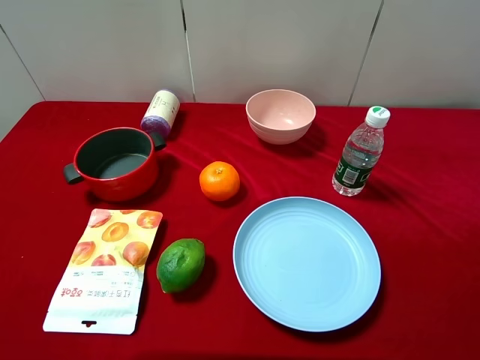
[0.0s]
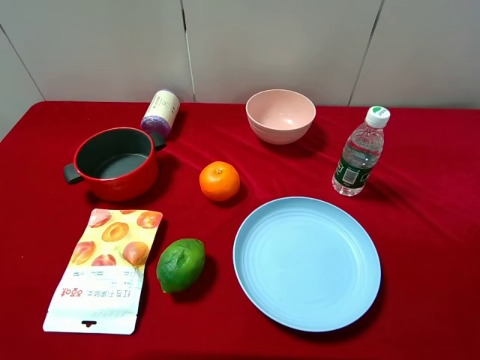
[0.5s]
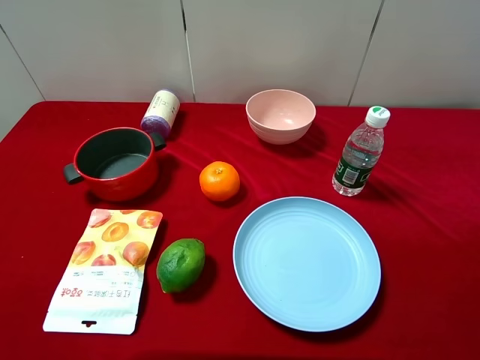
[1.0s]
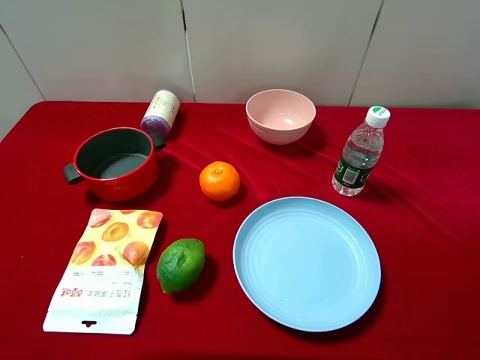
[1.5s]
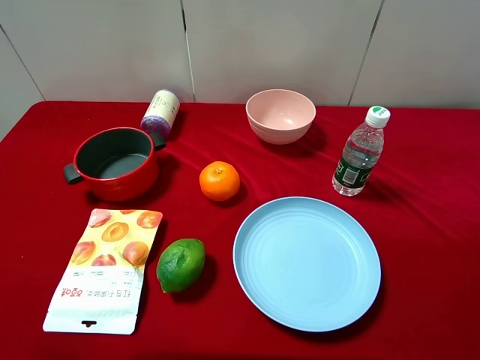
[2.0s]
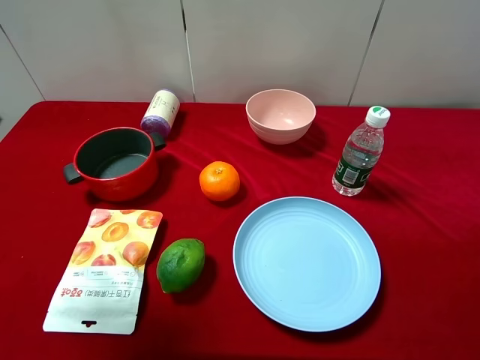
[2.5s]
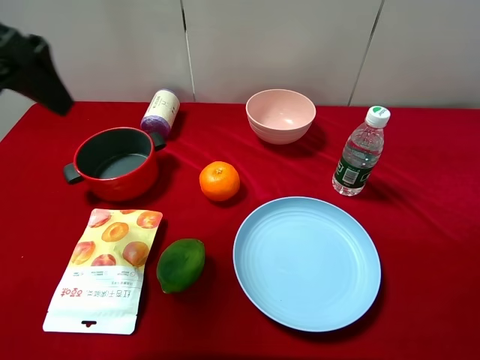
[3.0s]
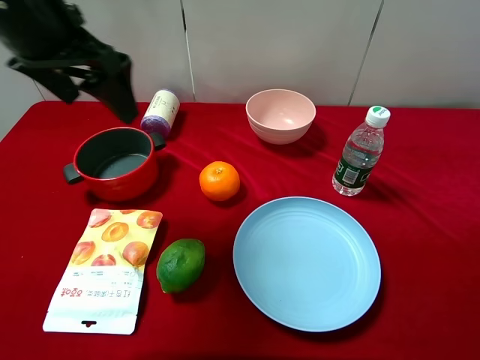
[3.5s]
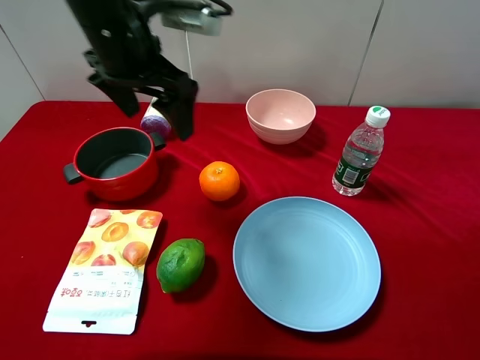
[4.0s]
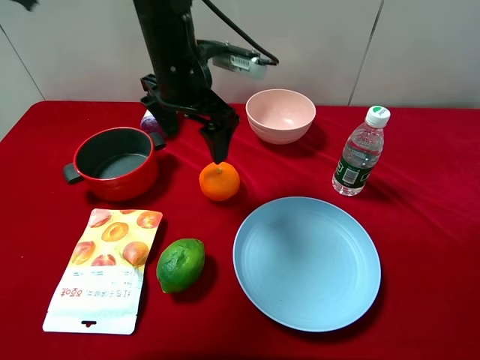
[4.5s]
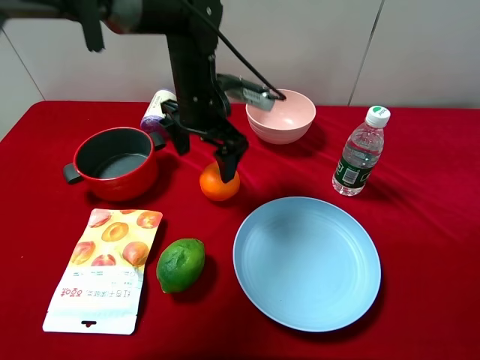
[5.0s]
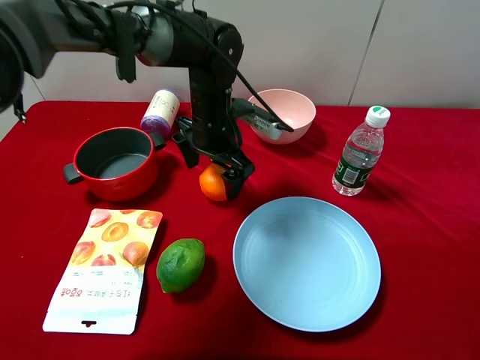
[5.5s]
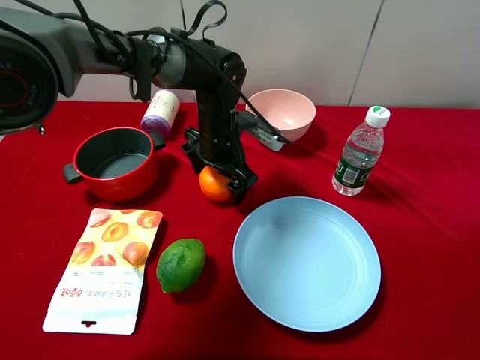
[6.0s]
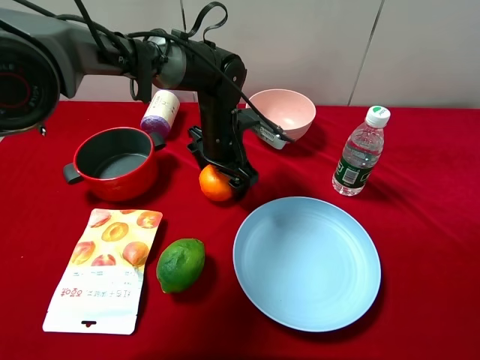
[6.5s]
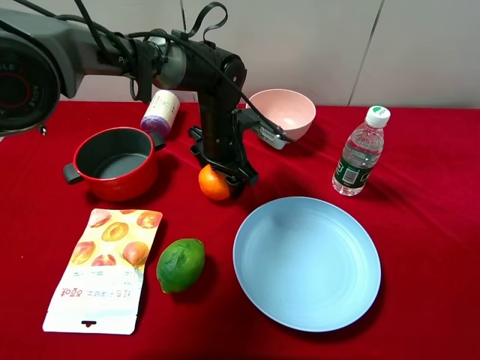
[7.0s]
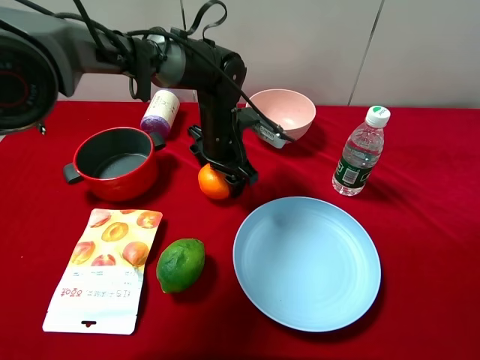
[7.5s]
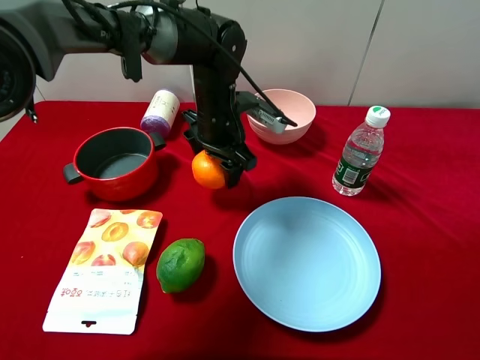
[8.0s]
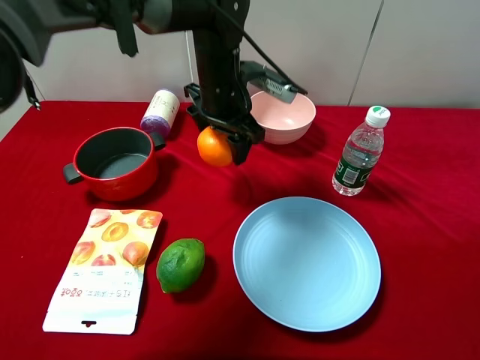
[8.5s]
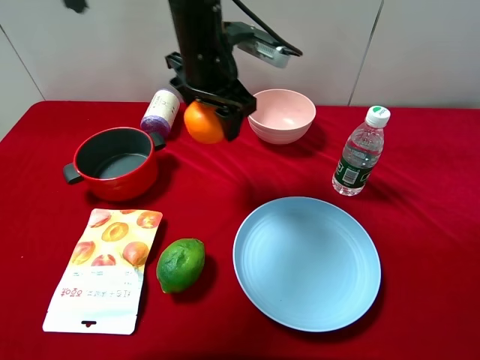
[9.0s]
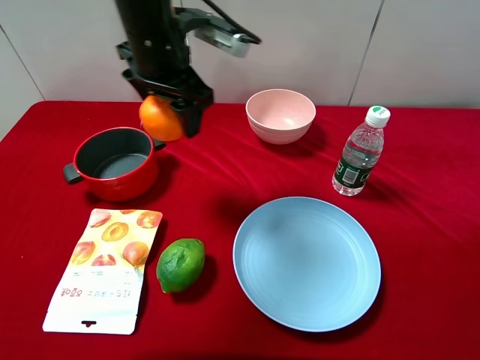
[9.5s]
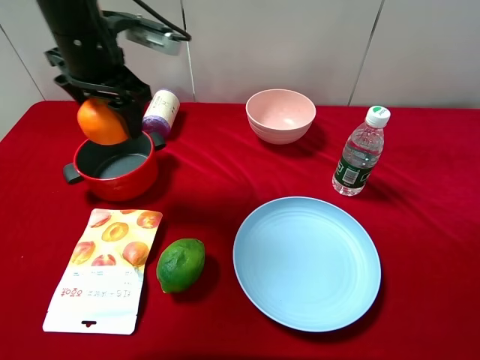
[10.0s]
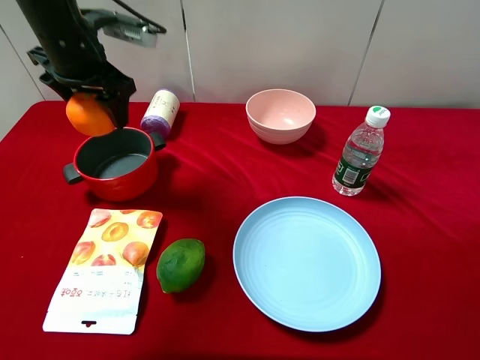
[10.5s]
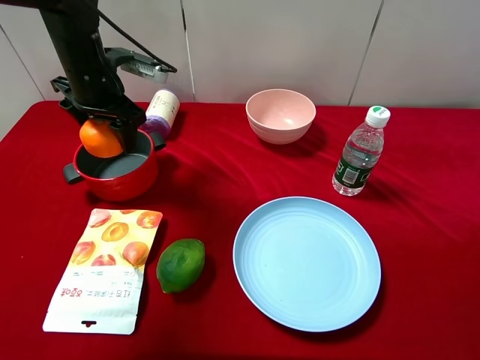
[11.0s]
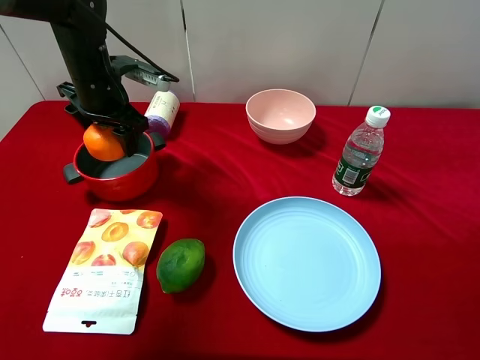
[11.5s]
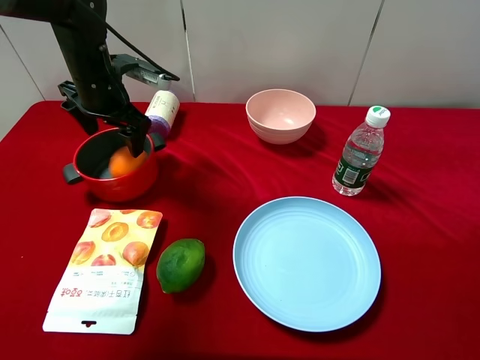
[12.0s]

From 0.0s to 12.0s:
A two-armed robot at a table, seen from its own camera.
Task of the whole recording: pick up an item with a gripper and place it in a random container on the desktop.
From 2.0s to 4.0s: The left gripper is displaced forward and to the right by some 30 cm.
From 4.0s to 6.0s: The left gripper heads downward and to the right, covering some 20 cm.
From 6.0s to 8.0s: The left gripper closes.
From 8.0s to 10.0s: The left gripper goes approximately 20 cm to the left and upward.
From 10.0s to 12.0s: The left gripper moves downward and forward, approximately 10 cm, and opens its fingers.

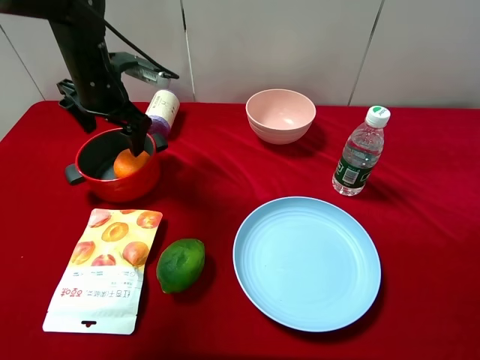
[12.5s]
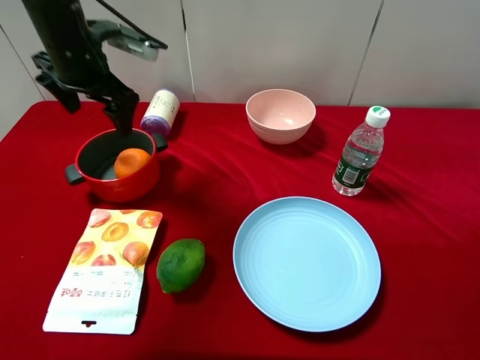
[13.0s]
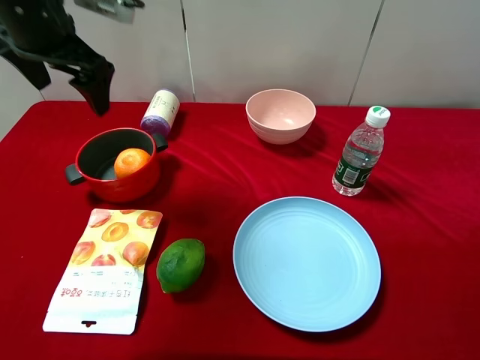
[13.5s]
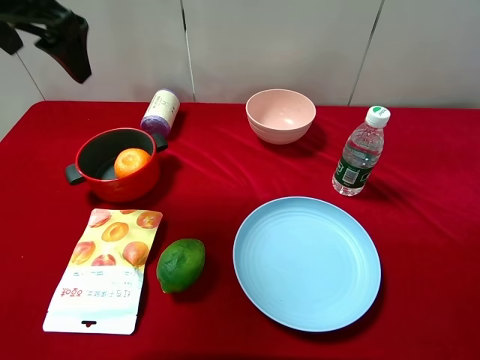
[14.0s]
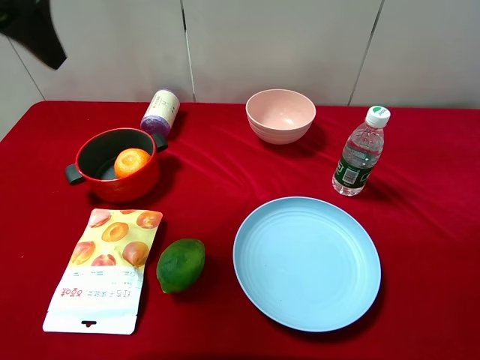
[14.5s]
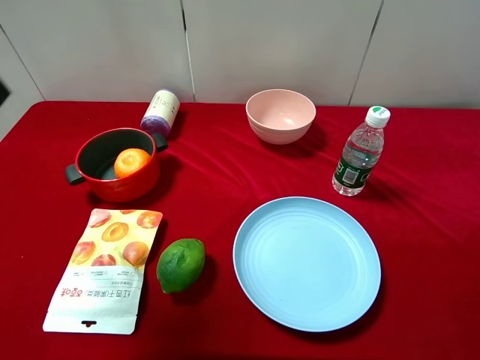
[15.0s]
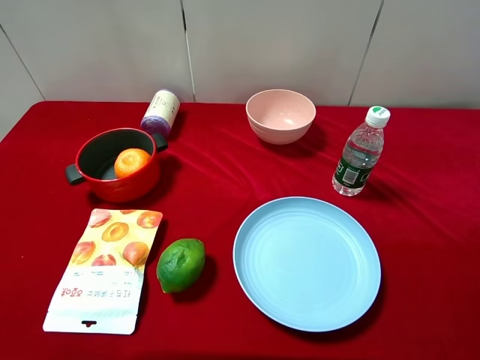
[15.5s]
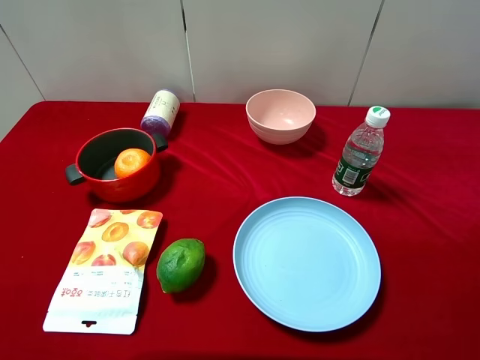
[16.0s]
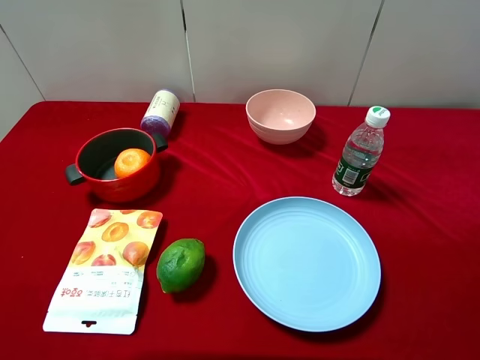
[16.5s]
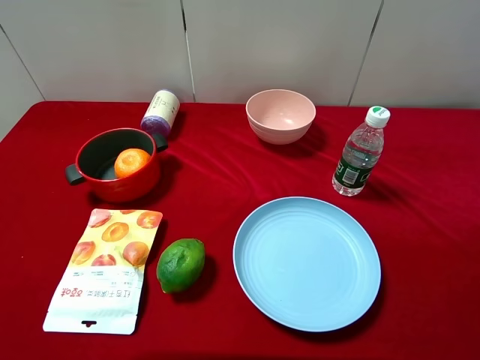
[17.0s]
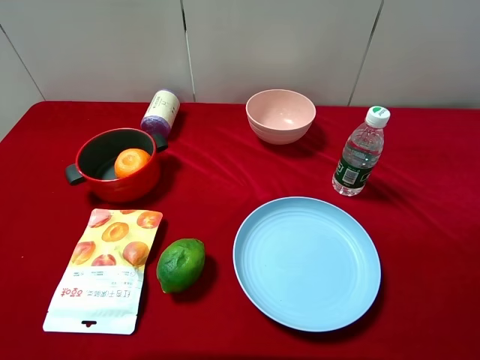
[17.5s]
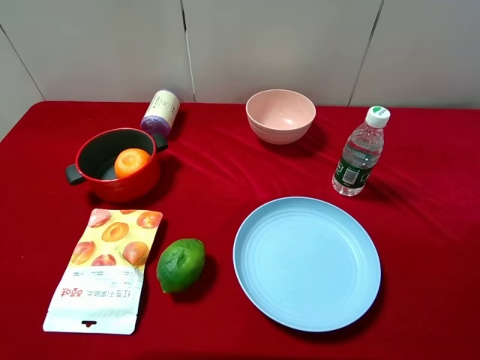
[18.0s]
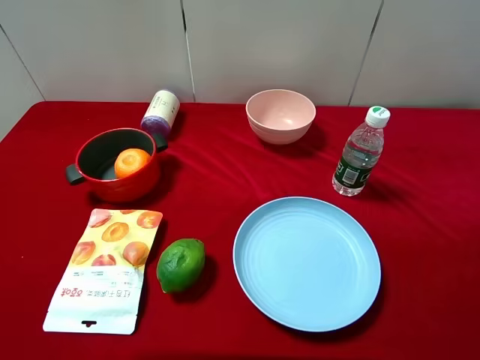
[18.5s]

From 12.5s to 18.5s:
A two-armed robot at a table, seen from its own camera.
Task of the whole recording: pick up an item with a gripper and place it in a random container on the desktop.
From 12.5s to 14.5s: The left gripper travels upward and backward by some 25 cm.
From 14.5s to 16.5s: The left gripper is displaced backward by about 25 cm.

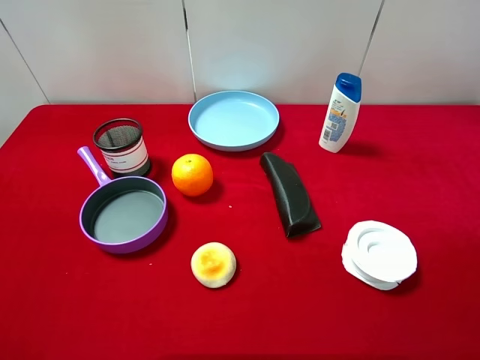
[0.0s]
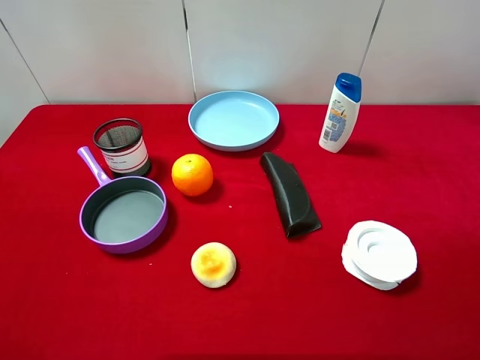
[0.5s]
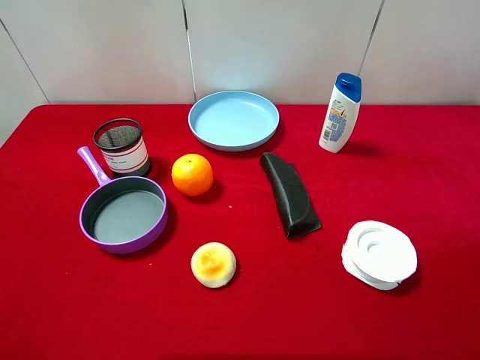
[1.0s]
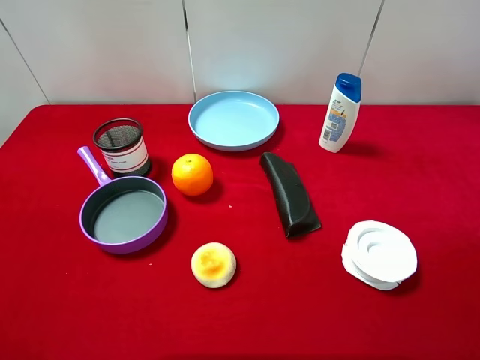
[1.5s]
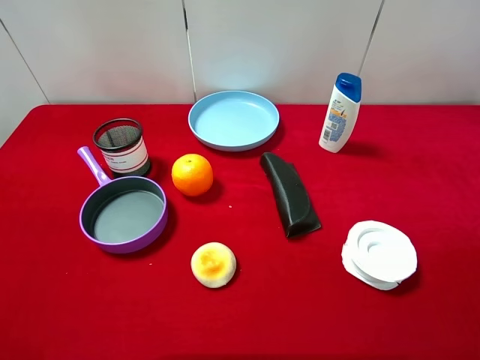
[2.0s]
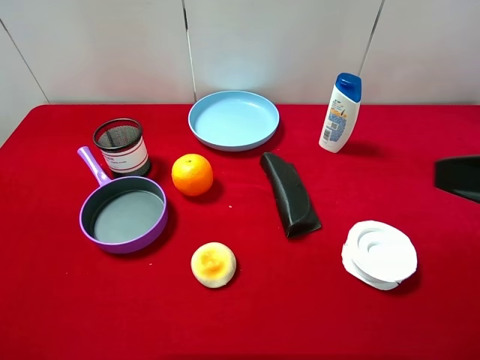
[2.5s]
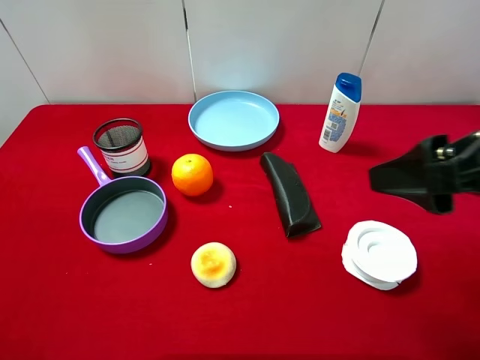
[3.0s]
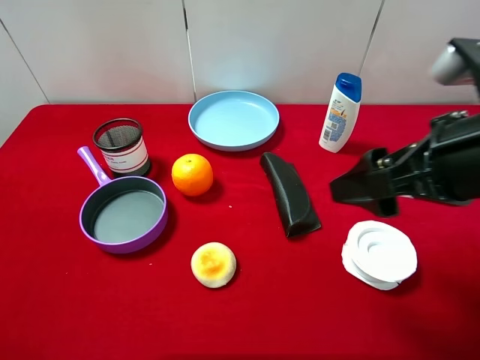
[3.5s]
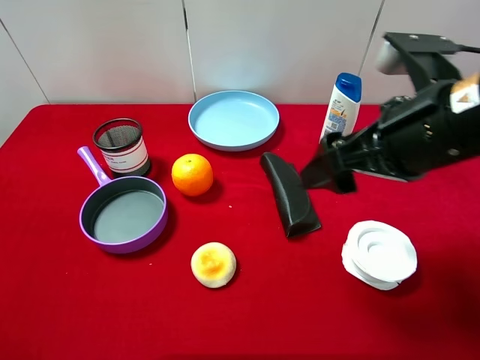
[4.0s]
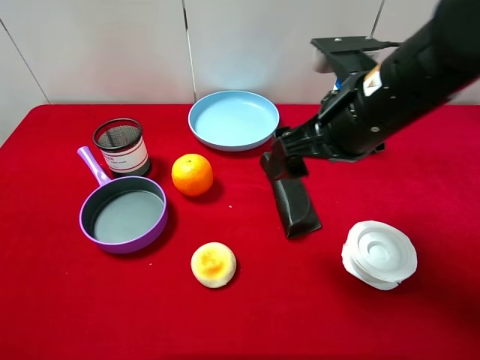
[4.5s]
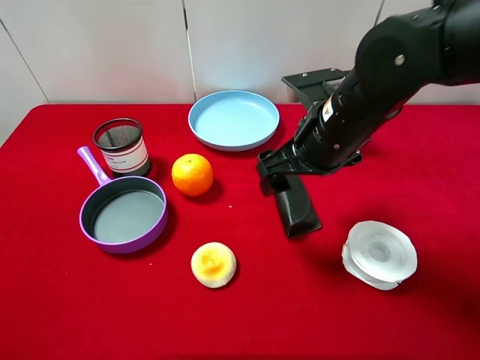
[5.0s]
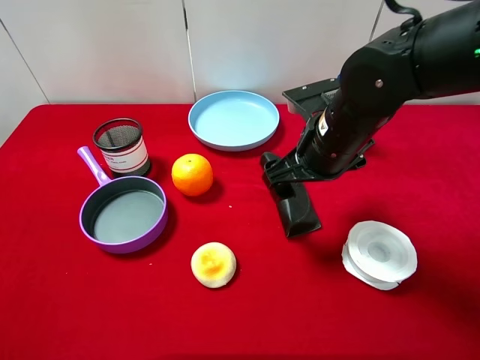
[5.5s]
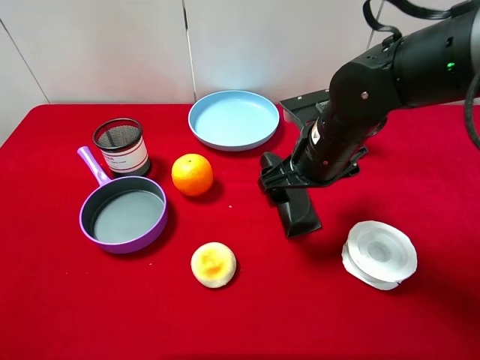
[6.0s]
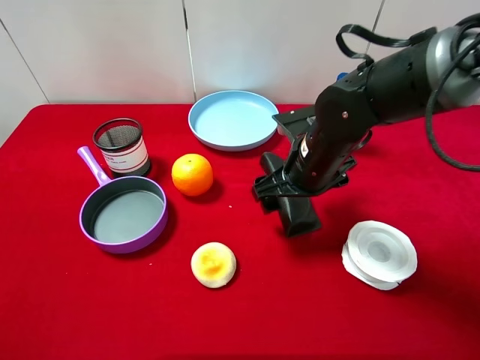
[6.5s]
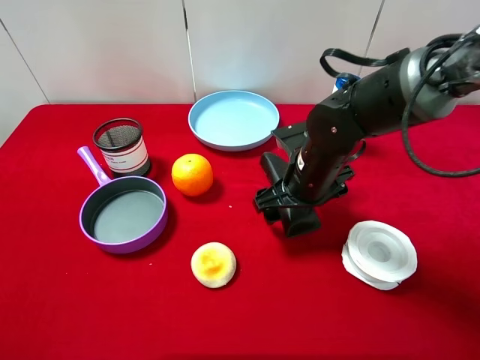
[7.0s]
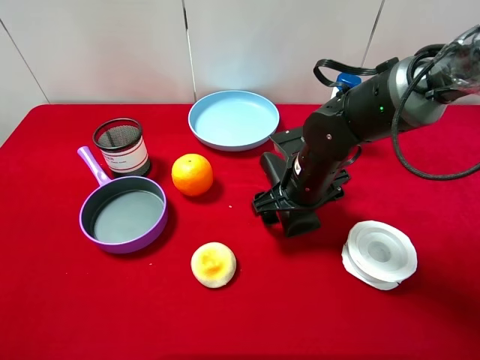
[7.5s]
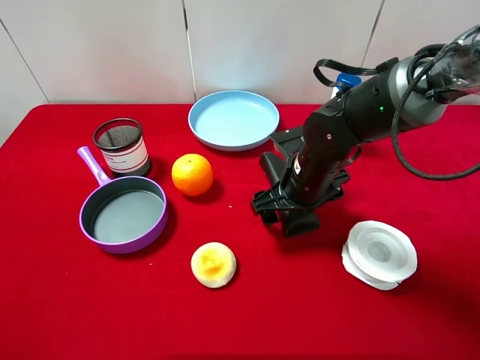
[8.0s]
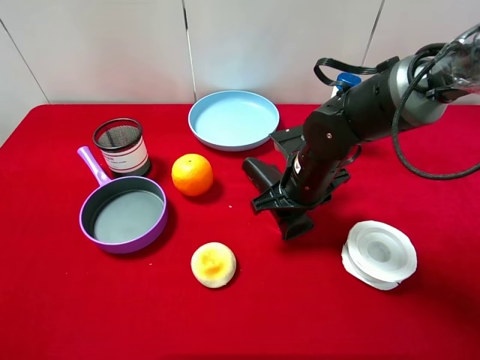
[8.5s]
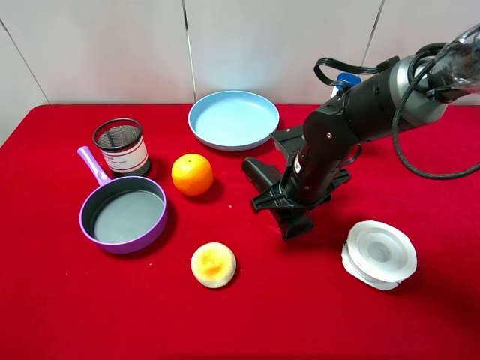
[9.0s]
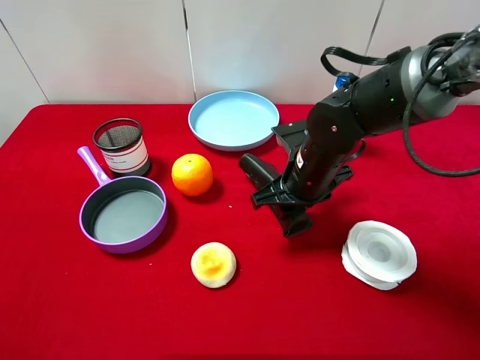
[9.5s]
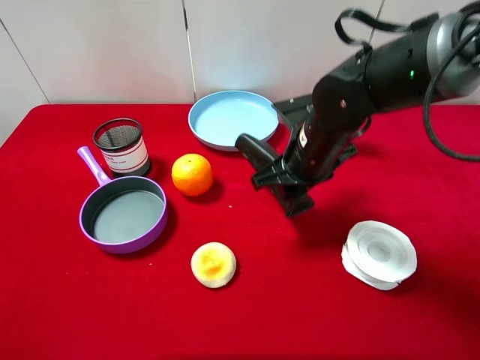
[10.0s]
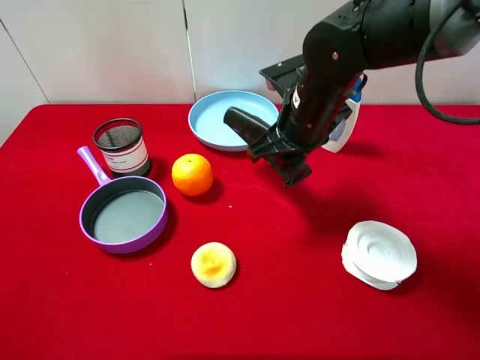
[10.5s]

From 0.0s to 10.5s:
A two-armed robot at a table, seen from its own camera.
Task of the whole recording: pick up an item with a gripper and place it in a random container on the desktop.
From 2.0s to 4.0s: The right gripper is displaced forward and to the left by approximately 20 cm.
From 4.0s to 6.5s: The right gripper goes some 15 cm downward, forward and to the left.
From 6.5s to 8.5s: The right gripper closes its fingers.
From 8.5s to 10.5s: The right gripper heads upward, covering approximately 10 cm.
